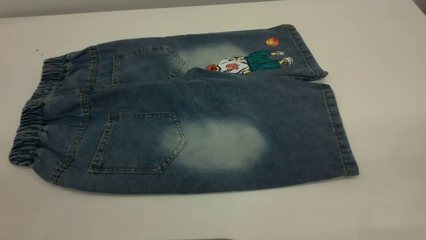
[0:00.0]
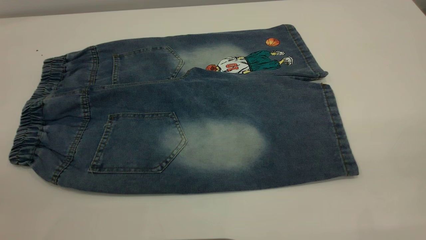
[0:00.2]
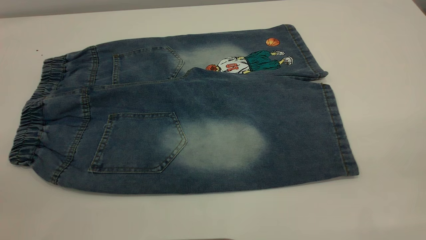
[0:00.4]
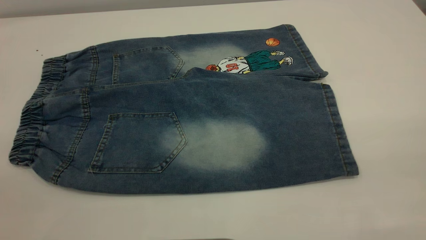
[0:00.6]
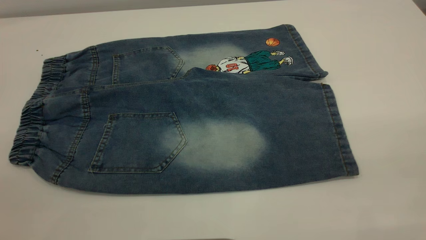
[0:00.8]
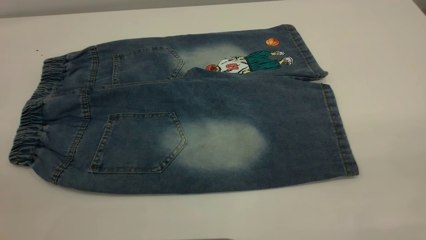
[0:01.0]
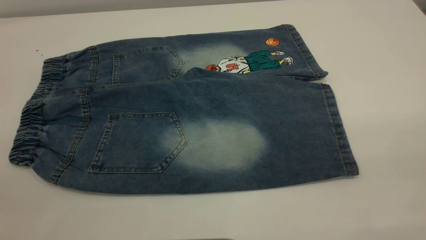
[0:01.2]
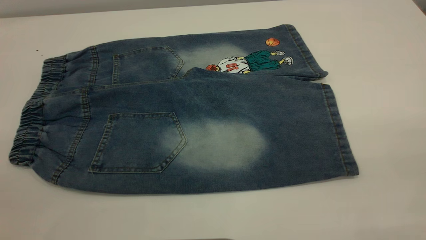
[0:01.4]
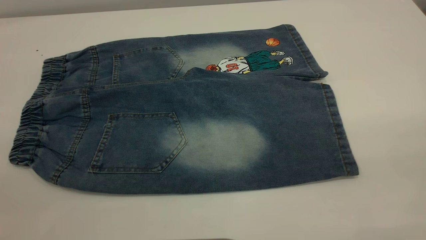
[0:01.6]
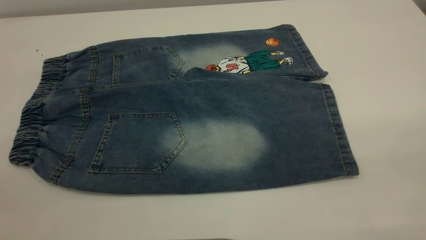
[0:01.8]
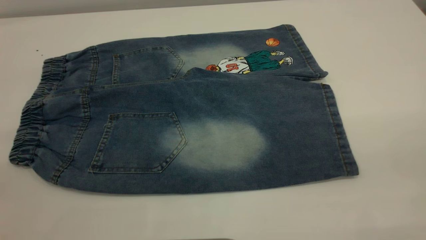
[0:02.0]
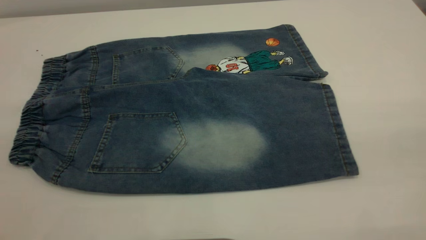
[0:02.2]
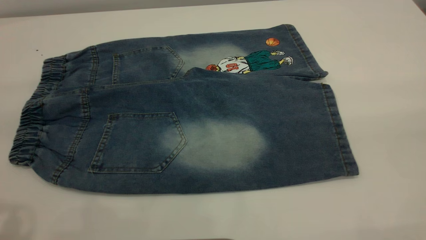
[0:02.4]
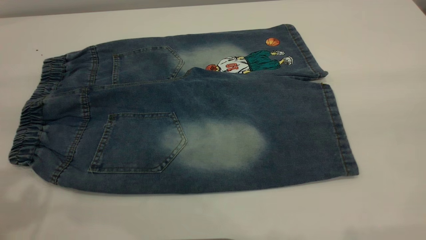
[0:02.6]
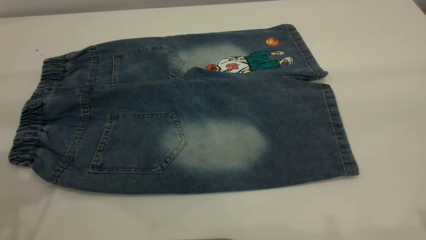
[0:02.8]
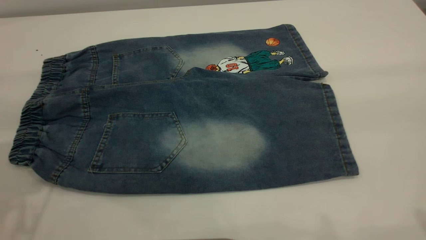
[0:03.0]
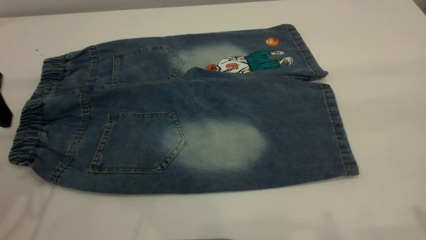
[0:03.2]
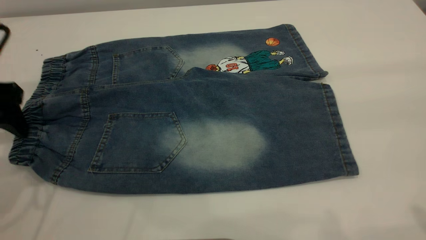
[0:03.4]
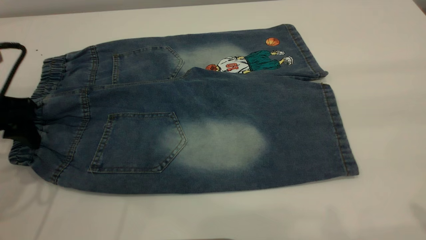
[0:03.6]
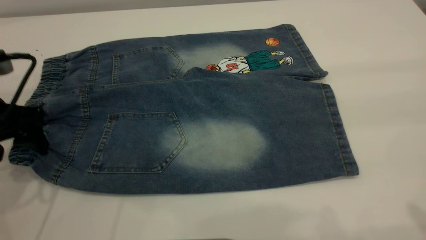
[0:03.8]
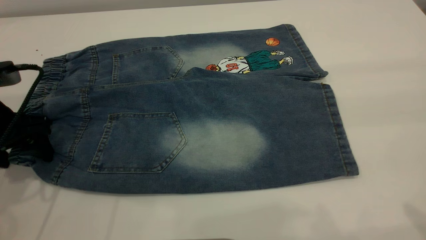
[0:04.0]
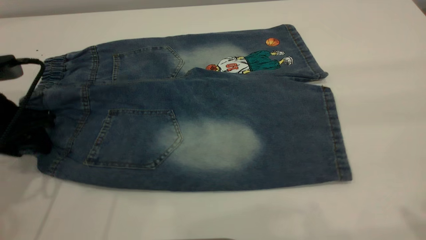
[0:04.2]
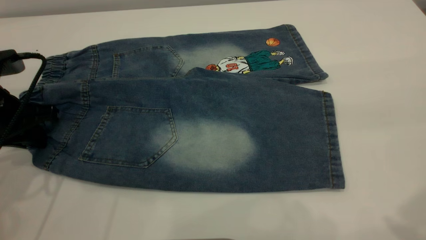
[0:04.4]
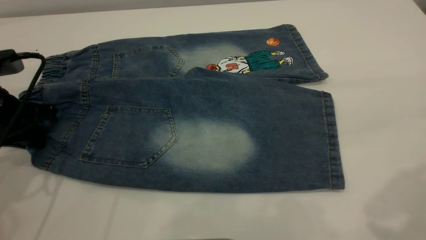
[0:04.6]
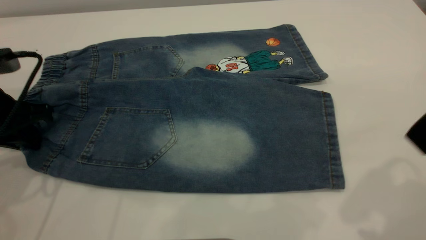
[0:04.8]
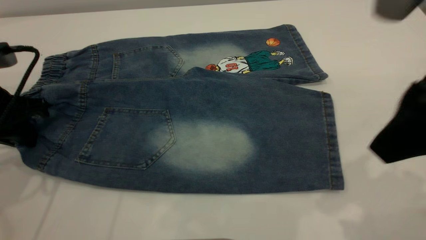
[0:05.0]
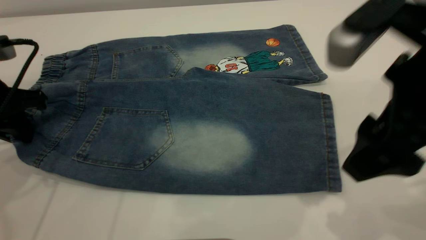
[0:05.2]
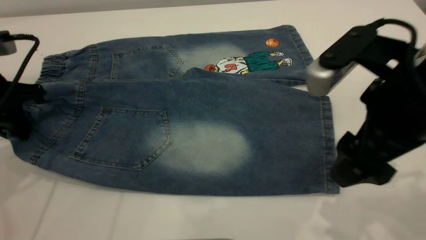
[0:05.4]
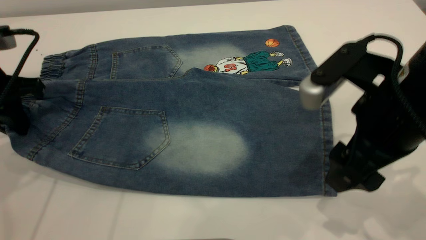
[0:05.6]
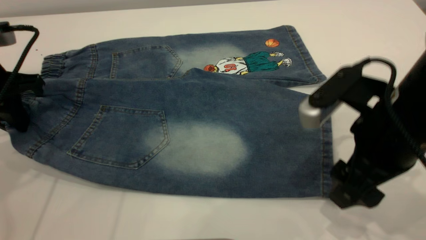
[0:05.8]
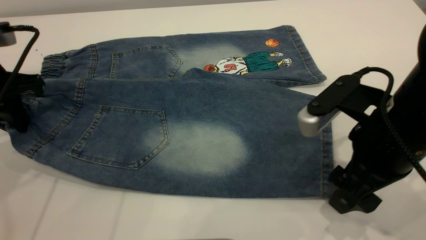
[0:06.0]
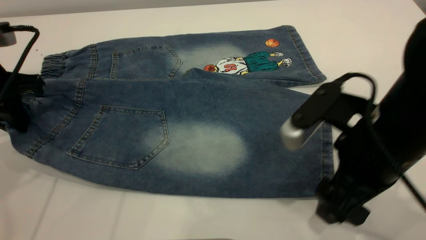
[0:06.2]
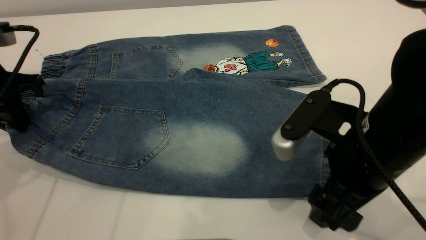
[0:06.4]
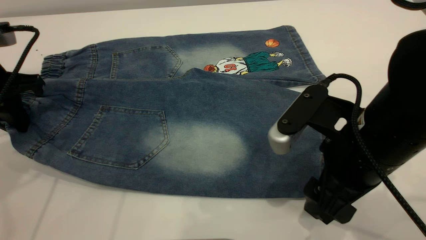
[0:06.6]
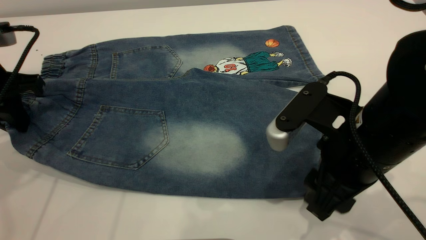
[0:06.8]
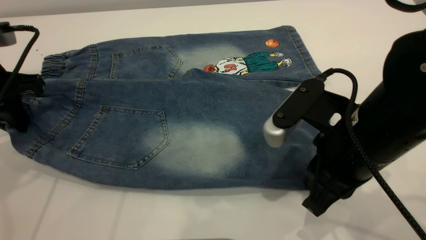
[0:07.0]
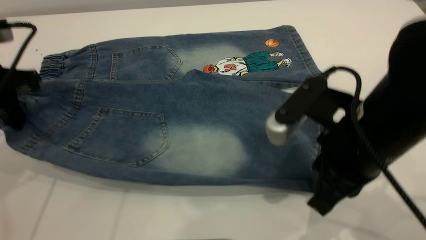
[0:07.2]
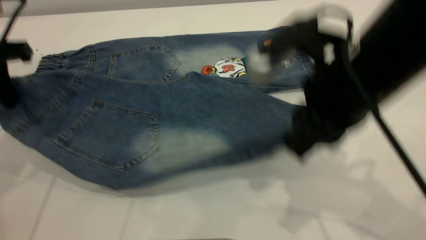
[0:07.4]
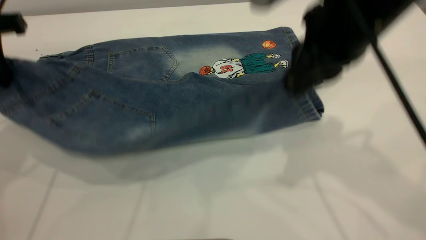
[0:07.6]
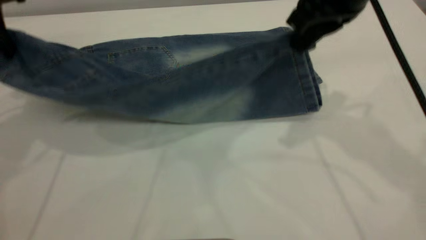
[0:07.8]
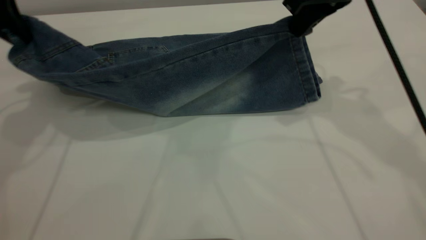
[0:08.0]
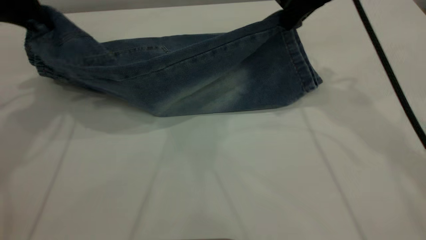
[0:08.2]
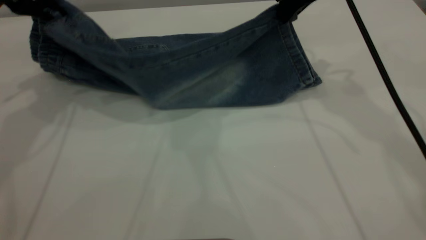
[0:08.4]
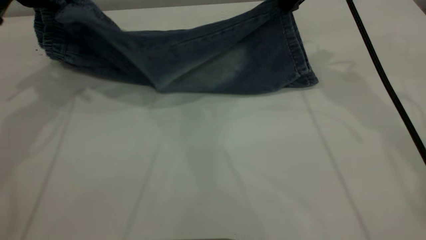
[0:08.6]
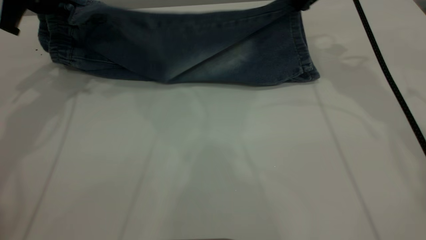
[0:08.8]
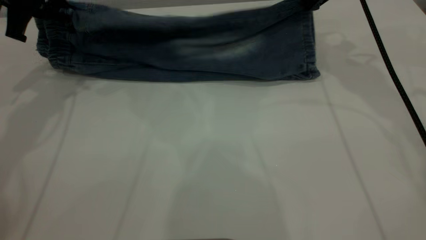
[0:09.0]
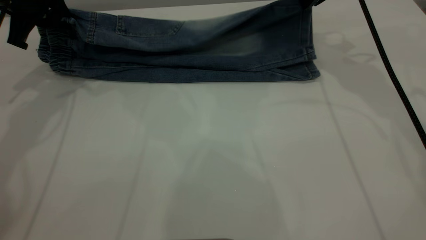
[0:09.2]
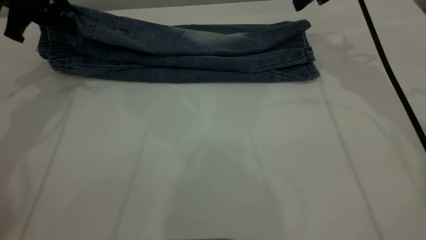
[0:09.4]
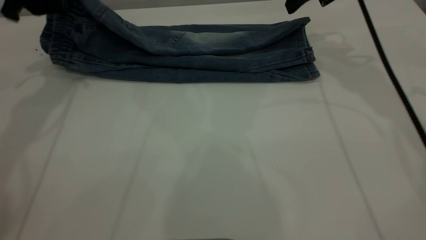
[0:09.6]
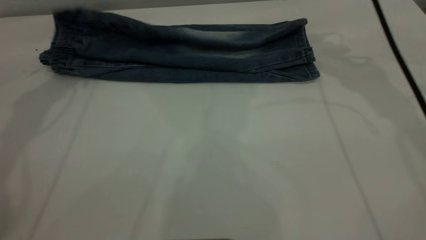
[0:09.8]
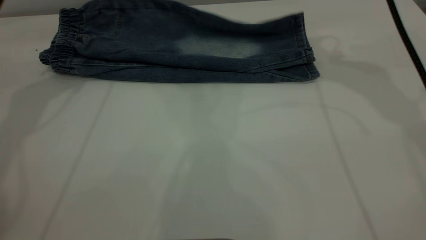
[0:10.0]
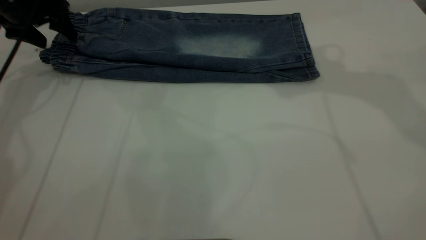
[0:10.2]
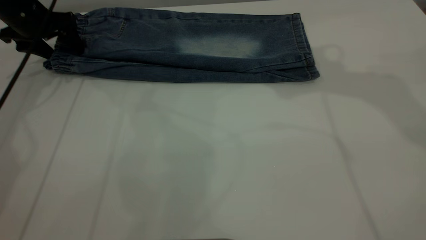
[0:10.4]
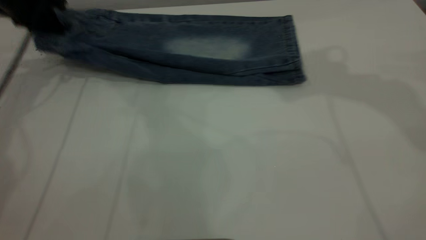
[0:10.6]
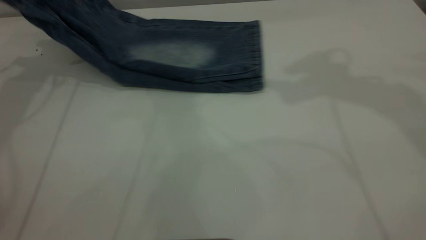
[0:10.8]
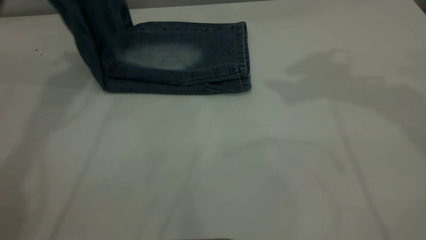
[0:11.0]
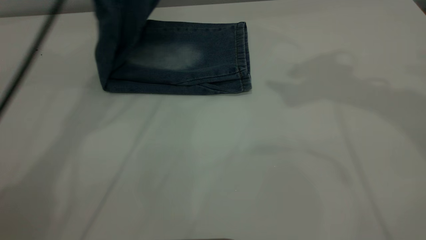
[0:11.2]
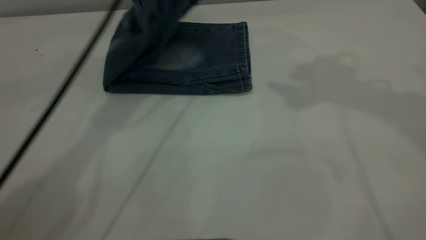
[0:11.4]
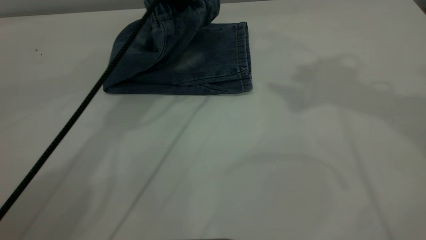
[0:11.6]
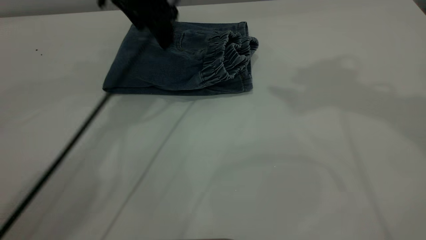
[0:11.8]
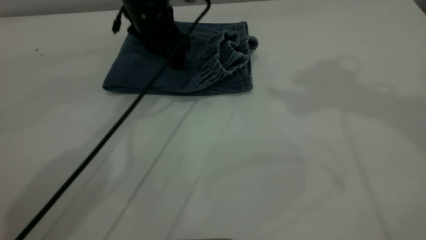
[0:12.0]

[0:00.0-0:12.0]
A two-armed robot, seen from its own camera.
Step, 0:00.0 to 0:10.0: Fold the bottom of the pants upward.
Step, 0:10.2 to 0:11.6: Fold the pants from left to right.
0:00.0 to 0:01.6: Both grippers stay put.
0:03.0 to 0:04.4: The left gripper shifts some 10 cm downward, and closes.
0:04.4 to 0:06.0: The right gripper is displaced downward by about 20 cm, while the left gripper ends up approximately 5 cm from where it was.
0:06.0 to 0:07.6: The left gripper heads upward, covering approximately 10 cm; the right gripper goes some 15 cm upward and forward, and closes.
0:07.6 to 0:09.0: The right gripper moves forward and to the right, about 20 cm. The left gripper shifts about 10 cm forward.
0:09.0 to 0:10.4: The right gripper heads upward and backward, covering some 15 cm, and opens. The left gripper goes some 10 cm forward and downward, and opens up.
0:10.4 to 0:12.0: The right gripper is displaced upward by roughly 10 cm; the left gripper heads to the right, covering about 25 cm, and closes and opens again.

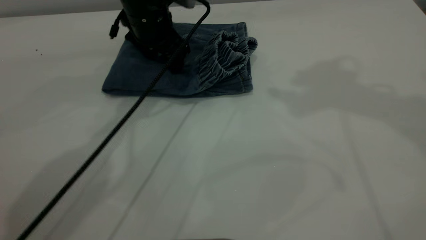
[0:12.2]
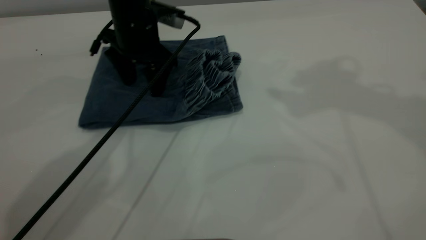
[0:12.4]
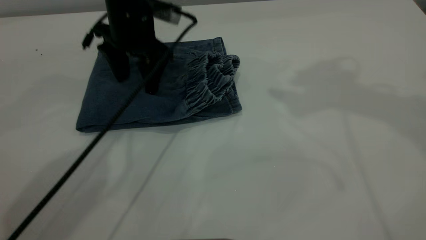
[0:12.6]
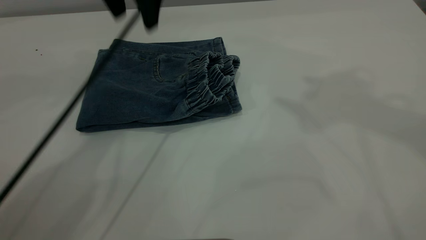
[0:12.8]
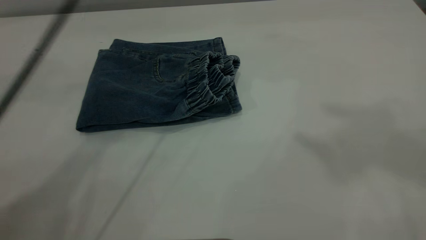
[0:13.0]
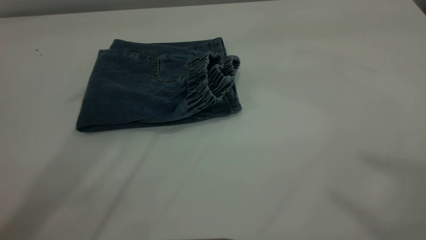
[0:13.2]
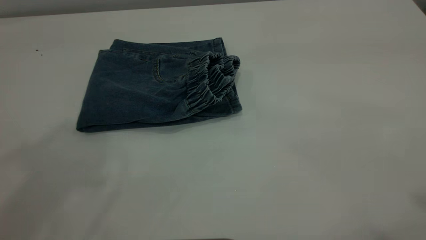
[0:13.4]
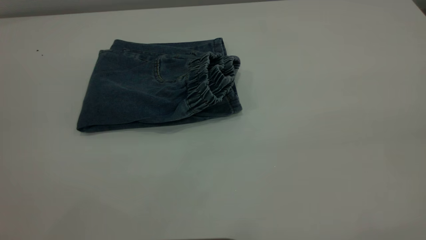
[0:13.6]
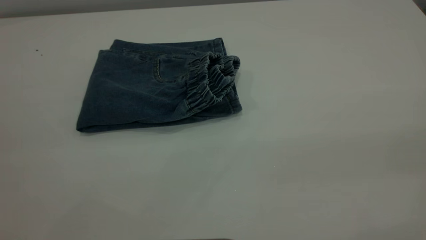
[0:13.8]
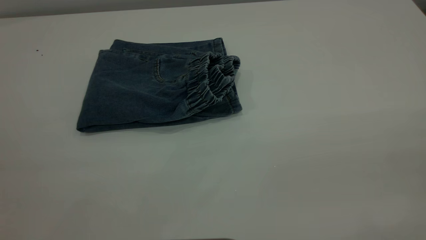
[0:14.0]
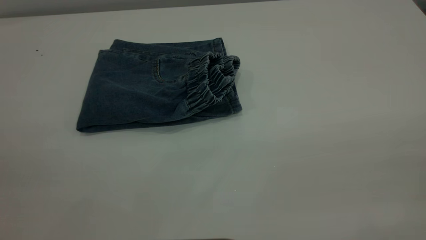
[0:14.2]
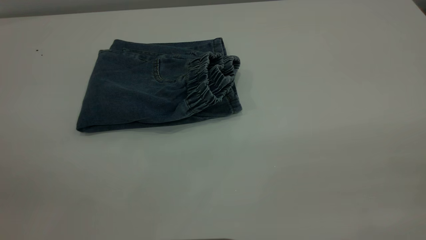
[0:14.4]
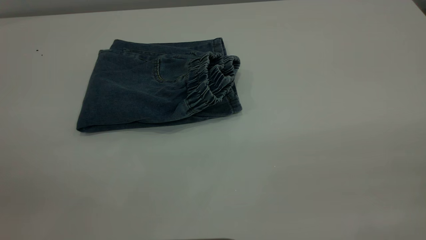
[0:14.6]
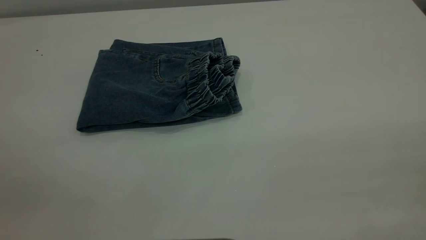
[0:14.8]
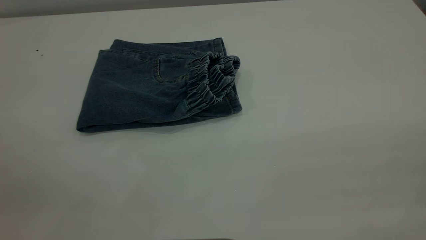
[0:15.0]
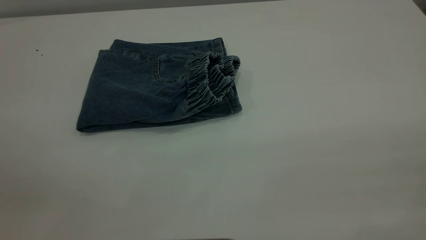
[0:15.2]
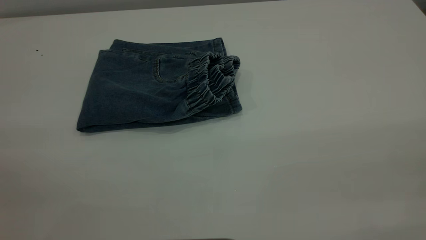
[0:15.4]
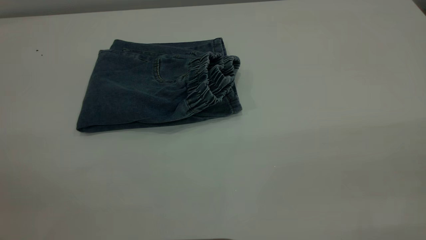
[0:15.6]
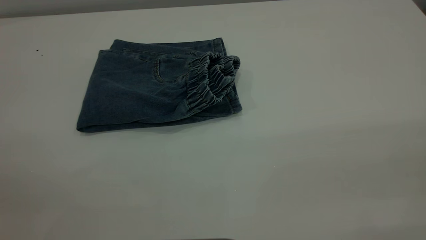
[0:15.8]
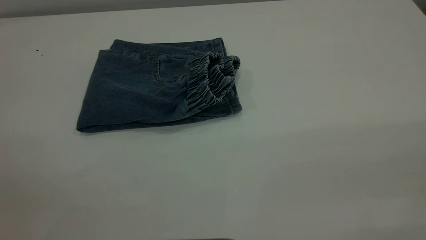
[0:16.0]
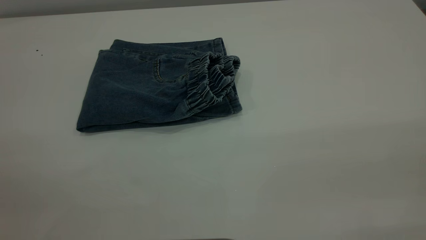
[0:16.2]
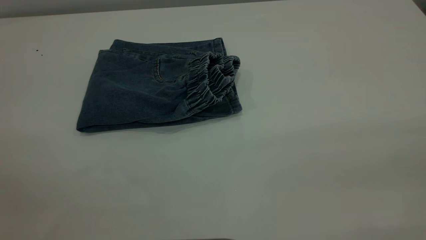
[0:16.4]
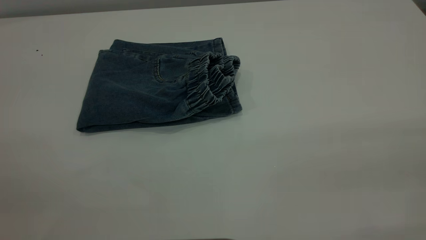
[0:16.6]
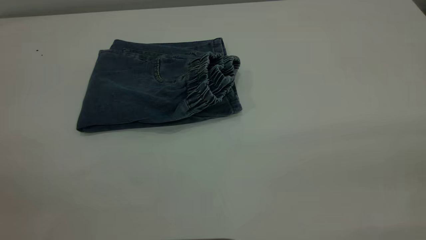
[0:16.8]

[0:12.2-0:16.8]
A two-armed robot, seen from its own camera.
0:12.2 to 0:13.8: The left gripper travels backward, upward and to the left by some 60 cm, while the right gripper heads backward, covering about 35 cm.
